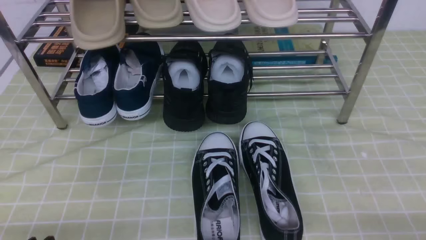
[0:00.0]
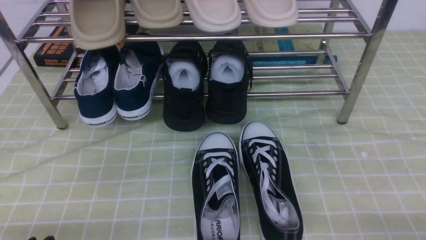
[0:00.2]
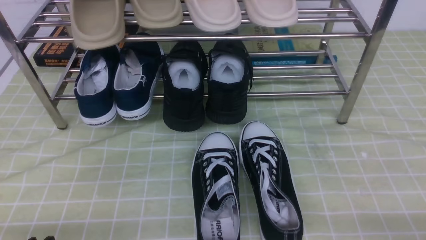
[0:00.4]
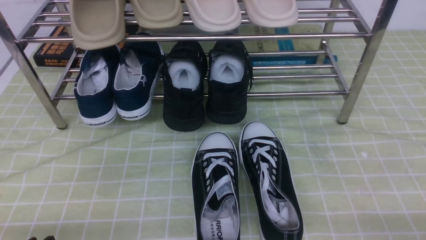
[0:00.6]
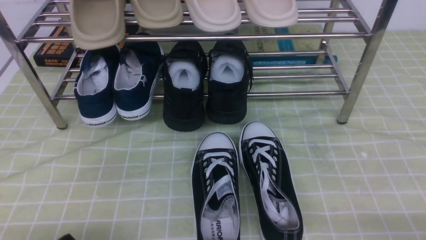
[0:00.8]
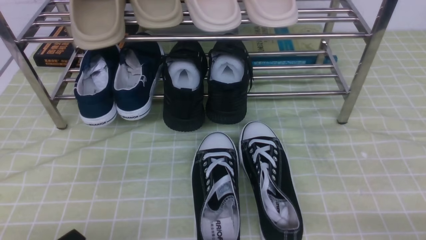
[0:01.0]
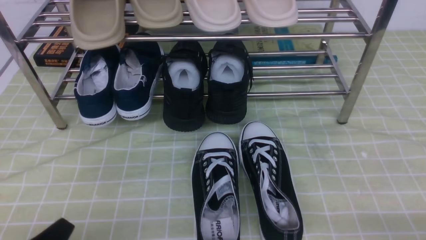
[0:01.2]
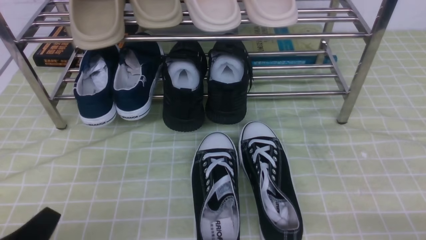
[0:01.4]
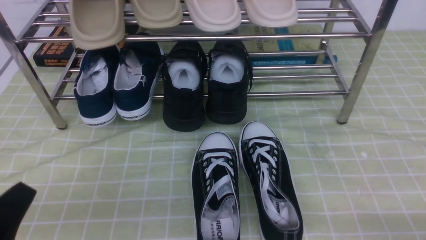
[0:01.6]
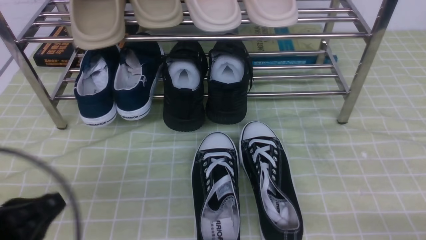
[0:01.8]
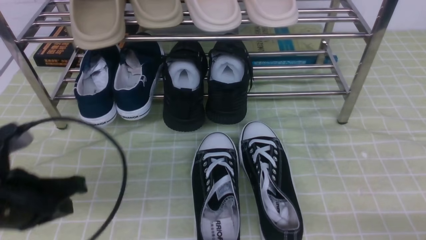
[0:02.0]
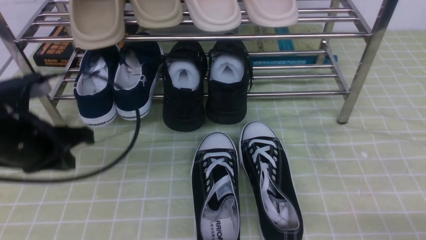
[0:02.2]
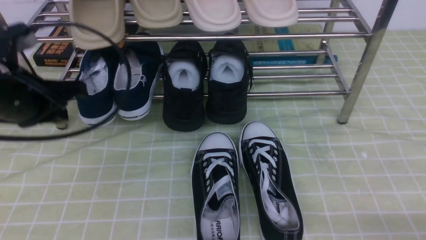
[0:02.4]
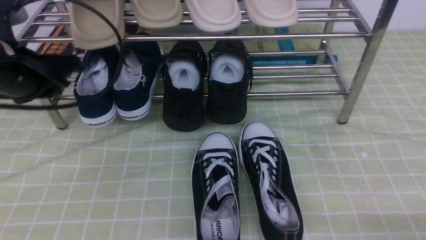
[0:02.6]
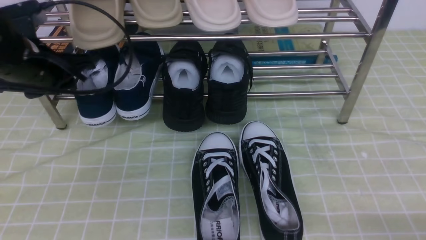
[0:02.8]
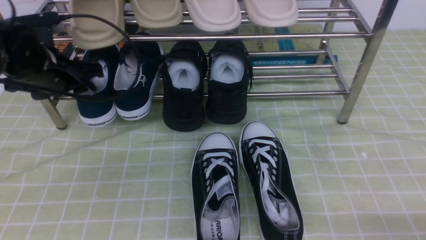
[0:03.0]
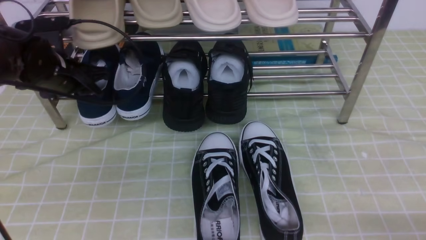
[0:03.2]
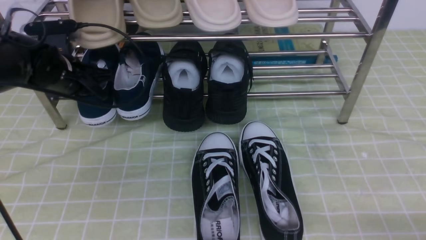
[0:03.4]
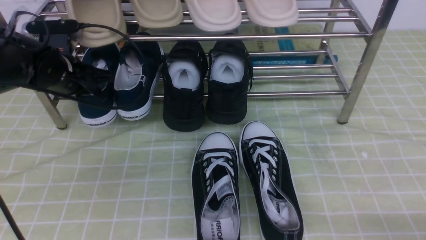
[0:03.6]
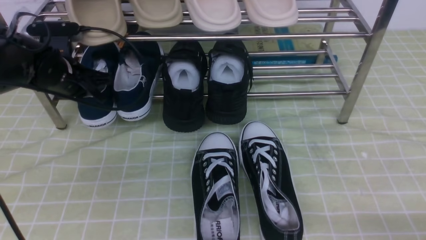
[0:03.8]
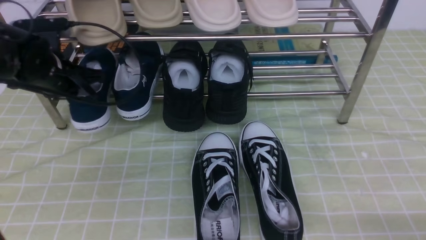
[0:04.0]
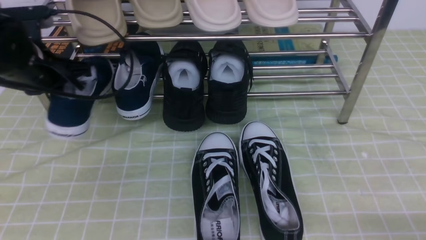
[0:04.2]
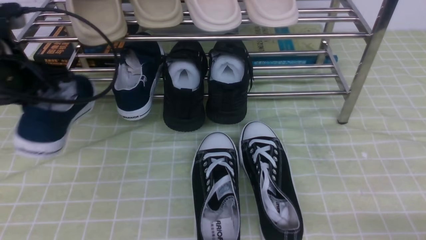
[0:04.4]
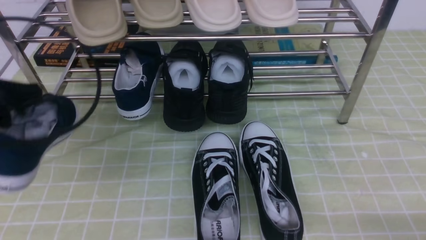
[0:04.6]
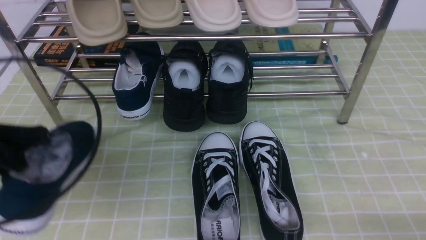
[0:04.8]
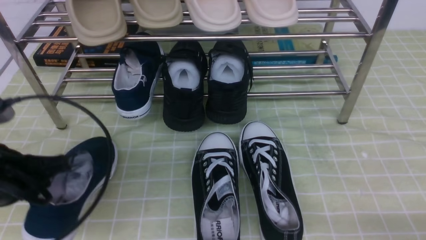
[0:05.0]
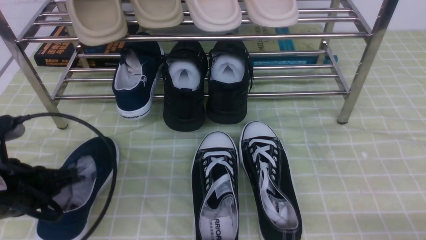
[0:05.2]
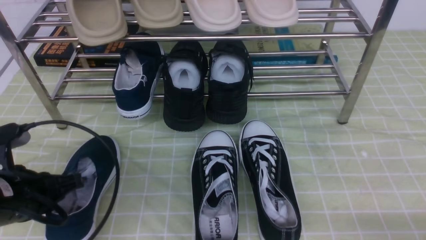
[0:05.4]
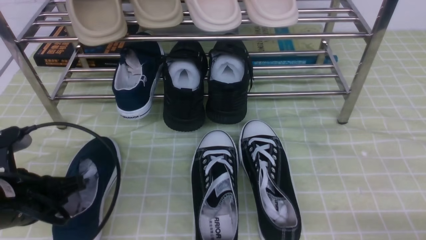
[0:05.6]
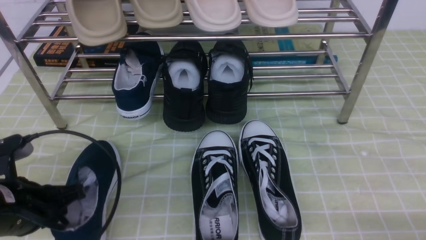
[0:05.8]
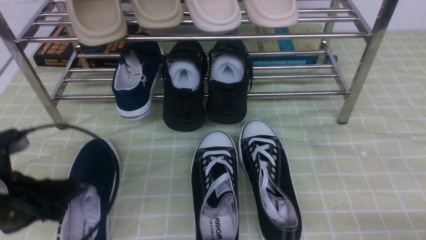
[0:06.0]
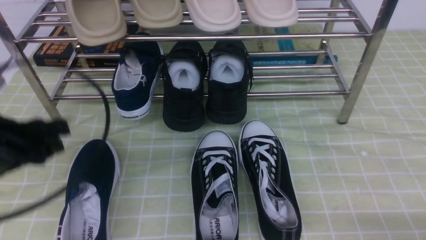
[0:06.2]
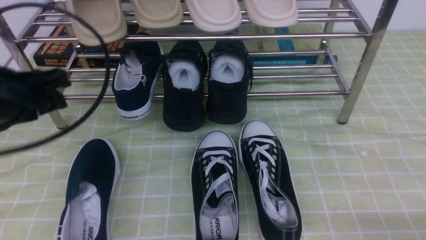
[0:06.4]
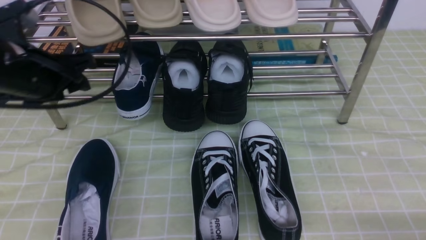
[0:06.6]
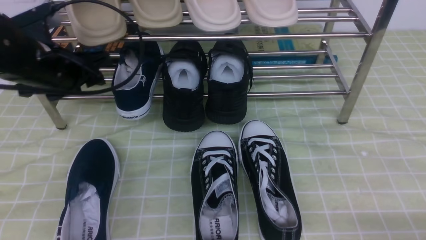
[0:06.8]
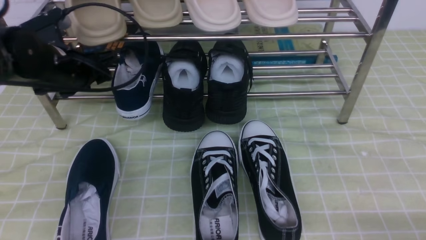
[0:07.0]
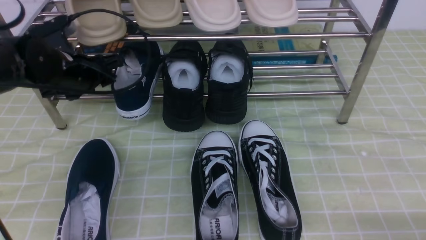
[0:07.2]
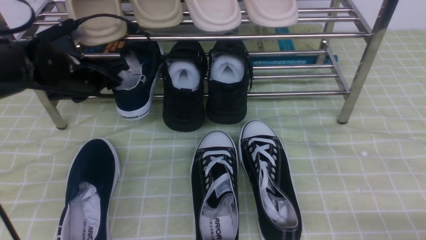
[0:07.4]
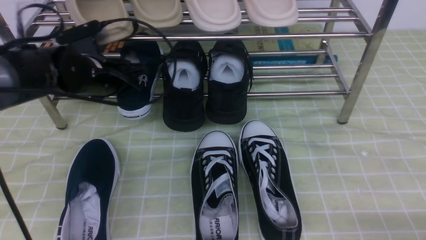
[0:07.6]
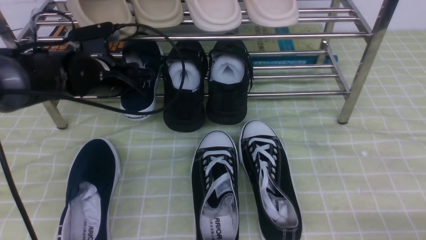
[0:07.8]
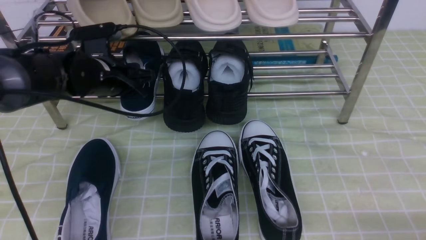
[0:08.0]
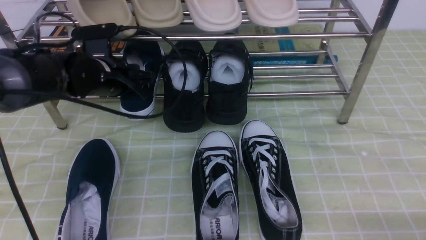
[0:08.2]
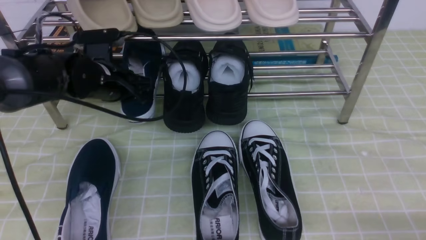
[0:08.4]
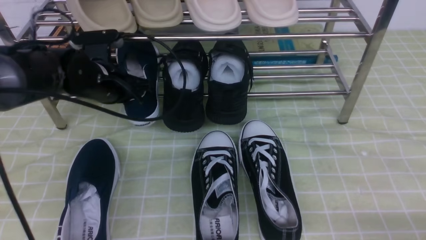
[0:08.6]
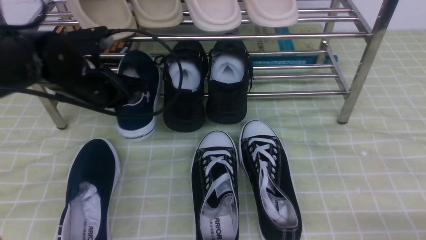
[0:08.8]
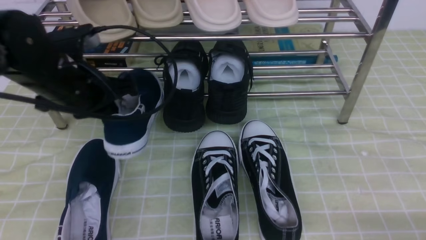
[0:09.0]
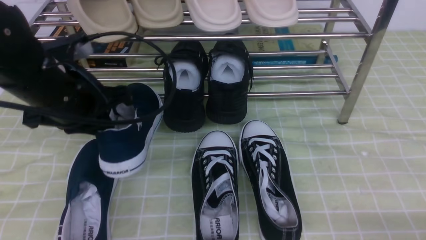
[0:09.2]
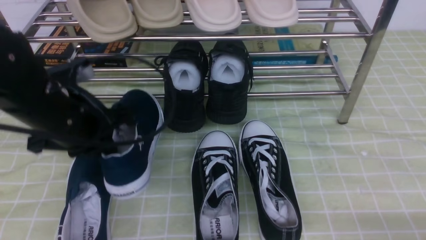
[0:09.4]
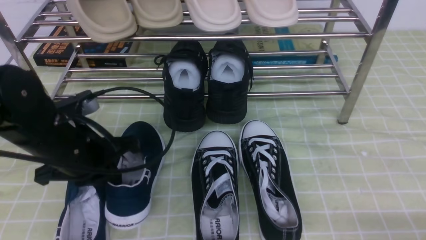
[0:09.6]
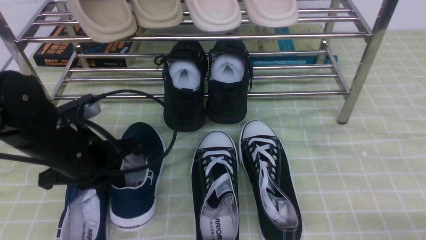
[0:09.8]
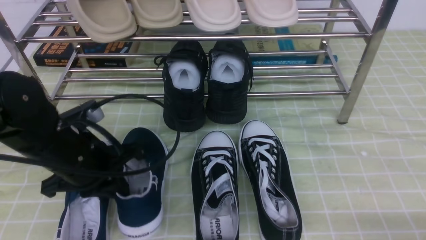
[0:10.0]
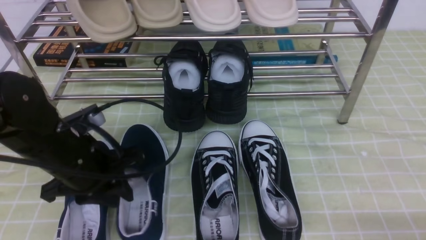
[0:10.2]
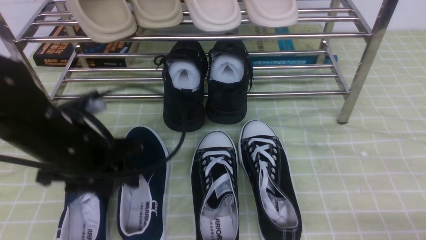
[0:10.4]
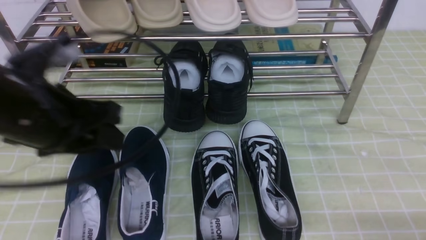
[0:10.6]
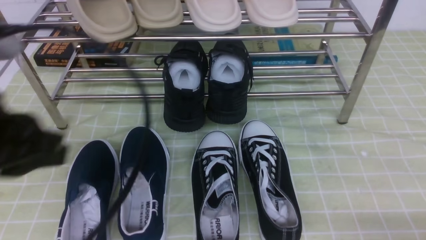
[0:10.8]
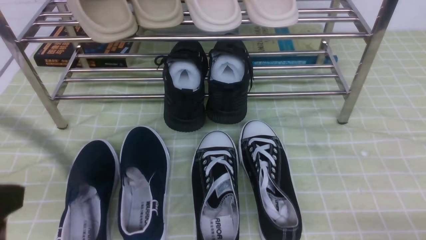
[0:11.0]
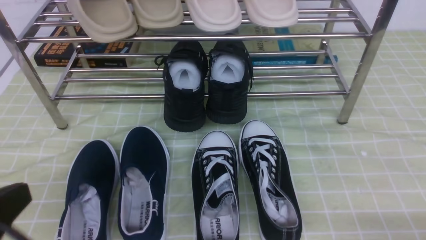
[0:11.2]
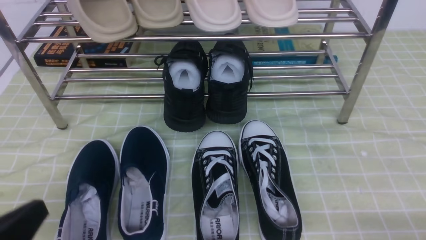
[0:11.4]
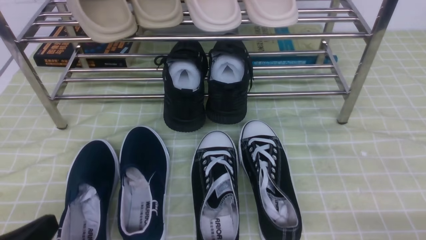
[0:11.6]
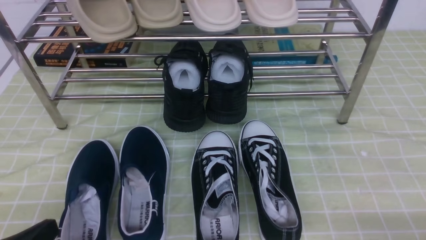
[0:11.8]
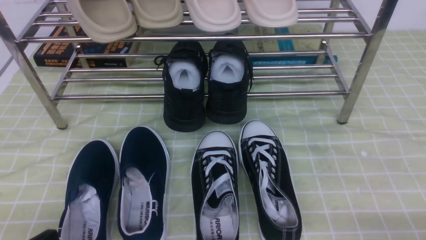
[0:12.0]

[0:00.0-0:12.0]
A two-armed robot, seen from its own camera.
Step, 0:00.0 to 0:03.8: use the left arm to clamp a shoe on the left side of the shoe rack.
Step, 0:04.0 to 0:06.2: Use your left arm to remove the clamped shoe from the shoe rack and put it down.
Step, 0:06.4 to 0:08.2: use the left arm to clamp a shoe on the left side of the shoe rack.
Step, 0:08.4 to 0:10.2: Use your left arm to remove the clamped shoe from the shoe rack and put it down.
0:00.0 to 0:01.6: The left gripper travels upward by some 5 cm, and closes.
0:01.6 to 0:03.0: The left gripper shifts about 30 cm forward, and opens up.
0:03.0 to 0:04.4: The left gripper is displaced backward and upward by some 10 cm, and closes up.
0:04.4 to 0:06.0: The left gripper moves backward and downward, some 10 cm, and opens its fingers.
0:06.0 to 0:07.6: The left gripper shifts about 20 cm forward.
0:07.6 to 0:09.0: The left gripper goes some 10 cm backward and upward, and closes.
0:09.0 to 0:10.4: The left gripper moves backward, some 10 cm, and opens up.
0:10.4 to 0:12.0: The left gripper is displaced backward and downward by about 20 cm, and closes.

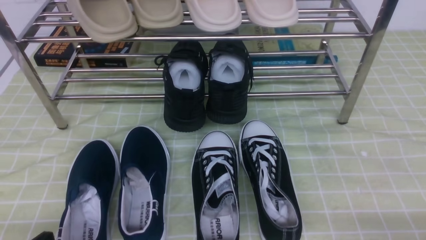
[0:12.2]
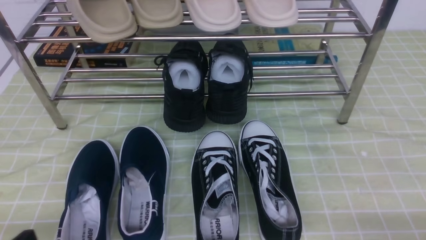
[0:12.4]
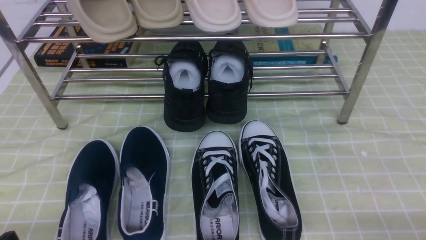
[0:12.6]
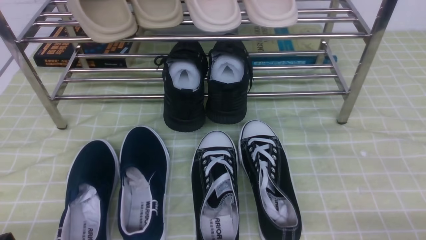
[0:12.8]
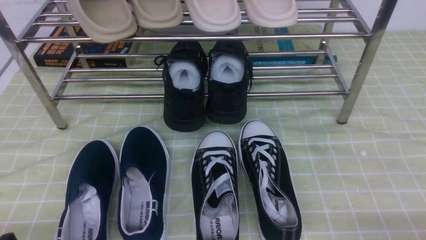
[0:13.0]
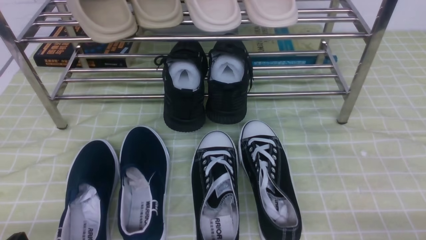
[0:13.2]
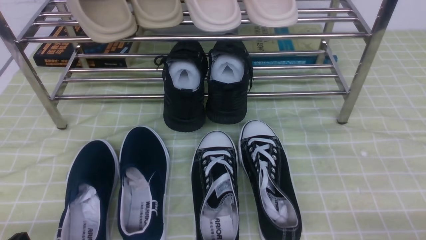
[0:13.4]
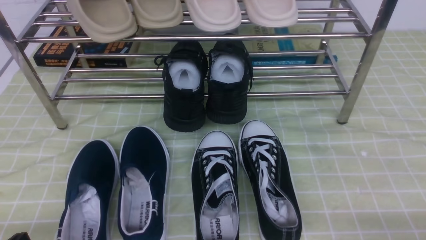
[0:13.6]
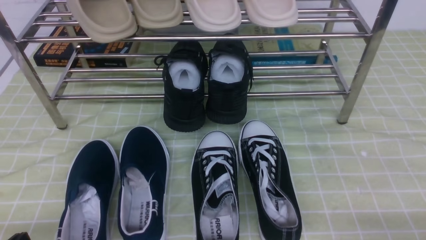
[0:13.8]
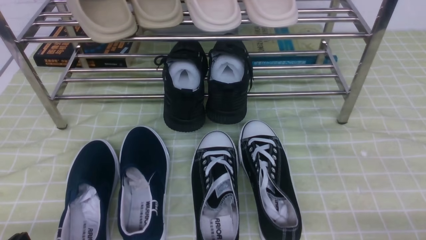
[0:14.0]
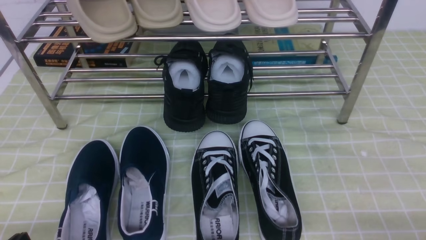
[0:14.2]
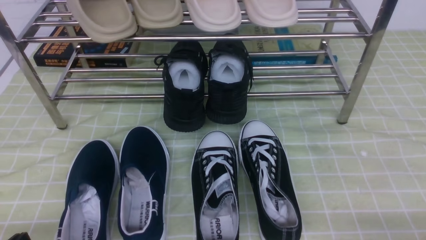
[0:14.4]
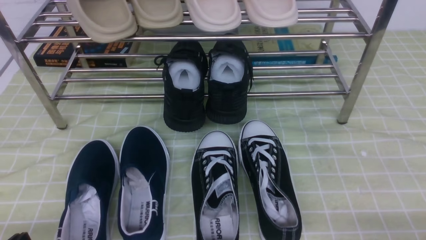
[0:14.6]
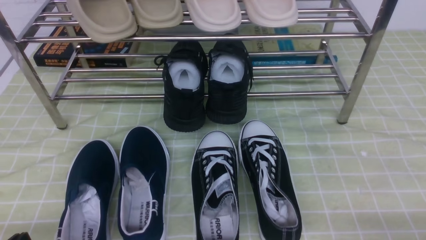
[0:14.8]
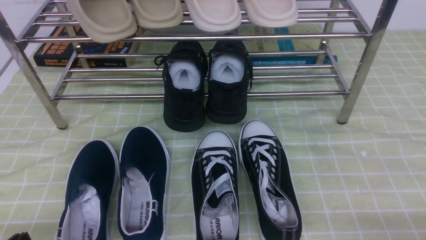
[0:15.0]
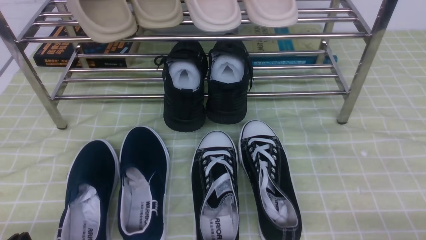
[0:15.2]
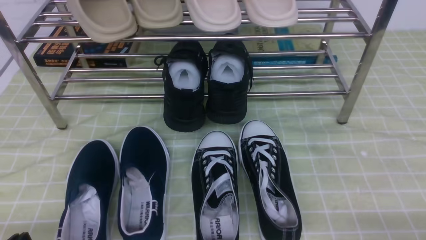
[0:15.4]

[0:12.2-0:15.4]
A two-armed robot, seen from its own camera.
0:13.8 to 0:15.4: Both grippers stay put.
